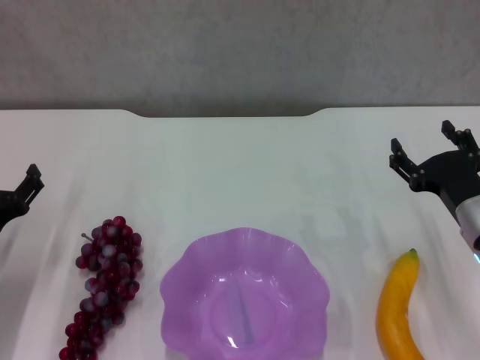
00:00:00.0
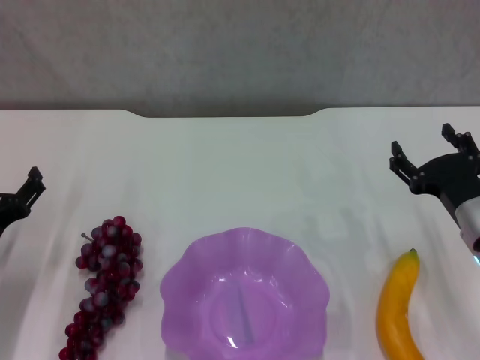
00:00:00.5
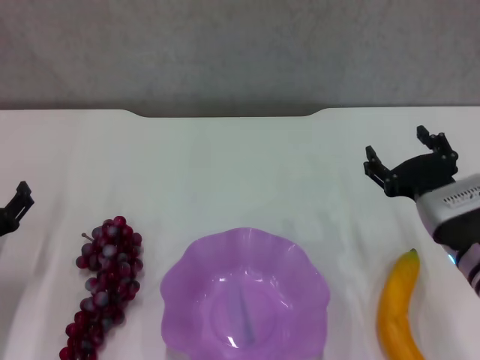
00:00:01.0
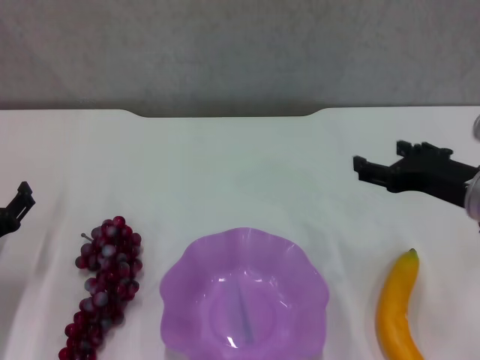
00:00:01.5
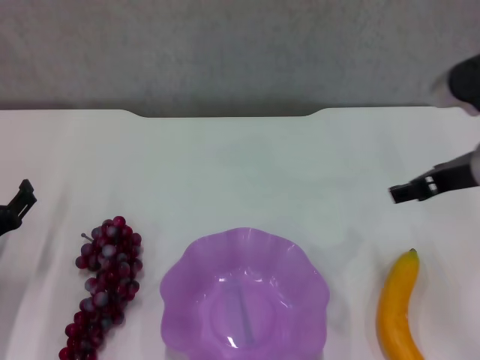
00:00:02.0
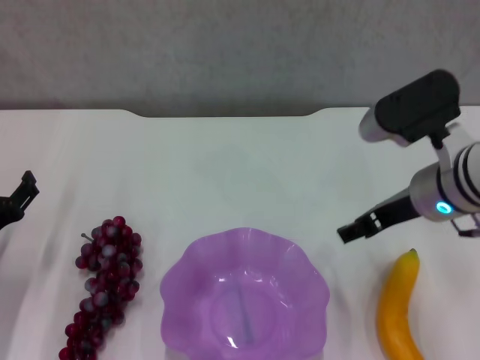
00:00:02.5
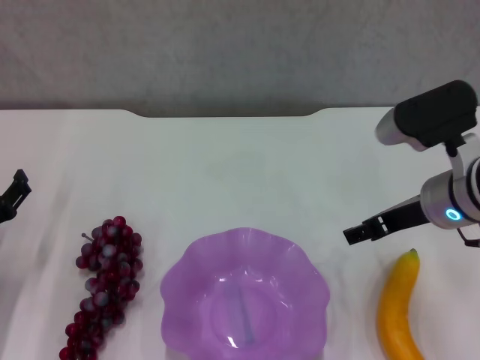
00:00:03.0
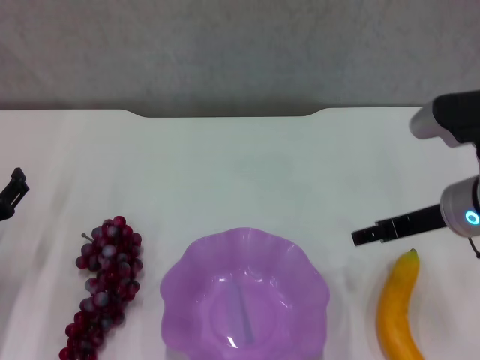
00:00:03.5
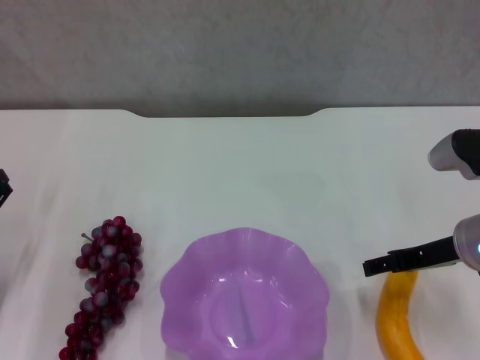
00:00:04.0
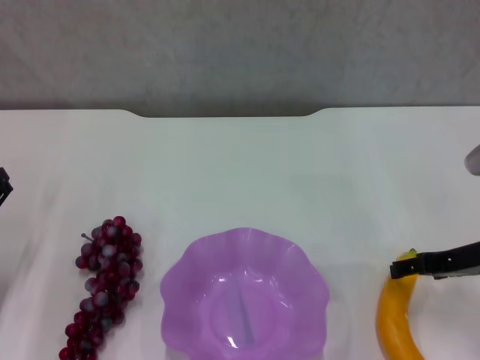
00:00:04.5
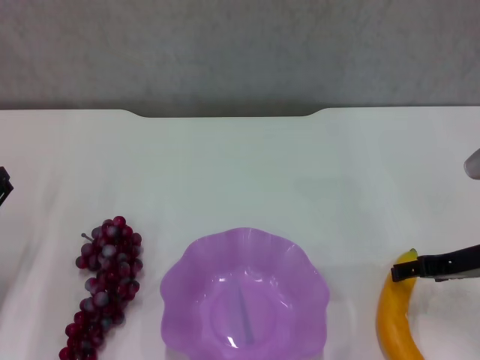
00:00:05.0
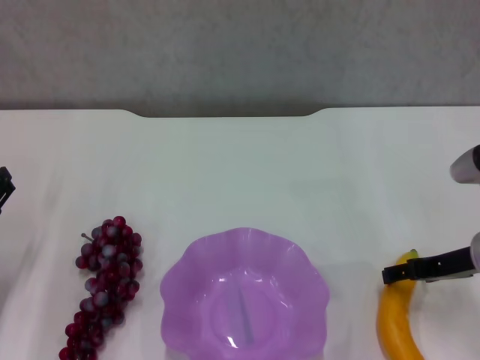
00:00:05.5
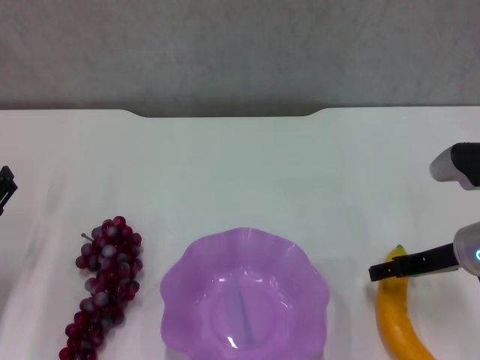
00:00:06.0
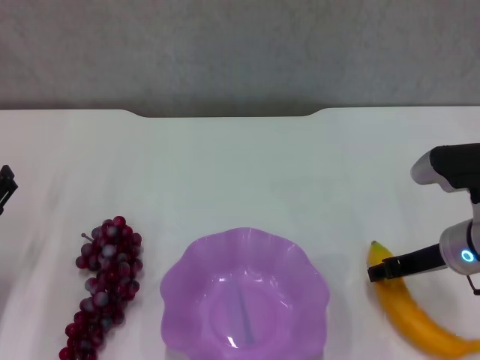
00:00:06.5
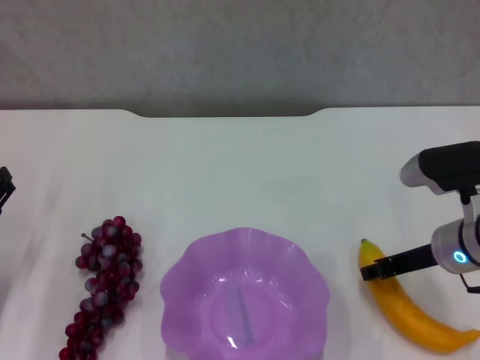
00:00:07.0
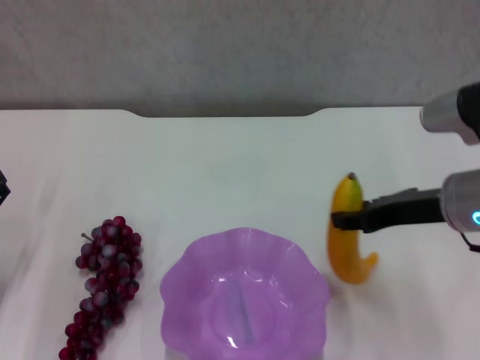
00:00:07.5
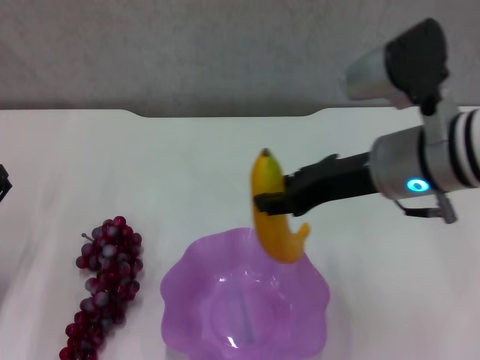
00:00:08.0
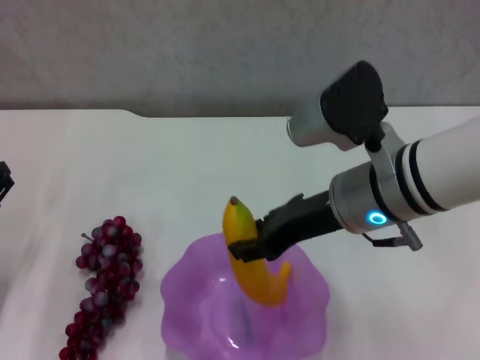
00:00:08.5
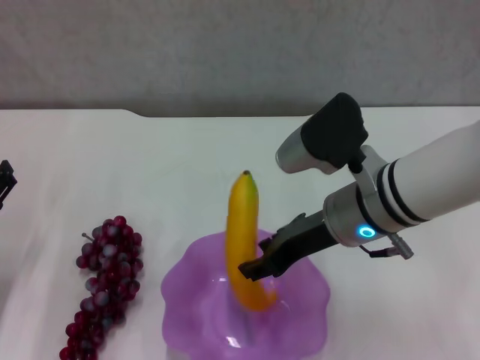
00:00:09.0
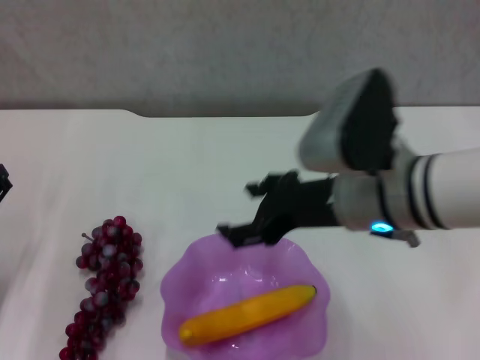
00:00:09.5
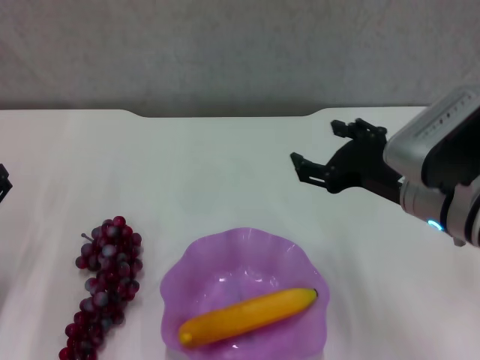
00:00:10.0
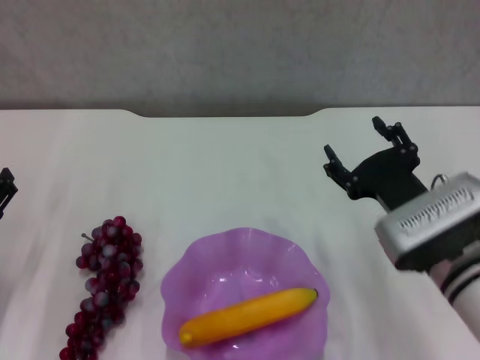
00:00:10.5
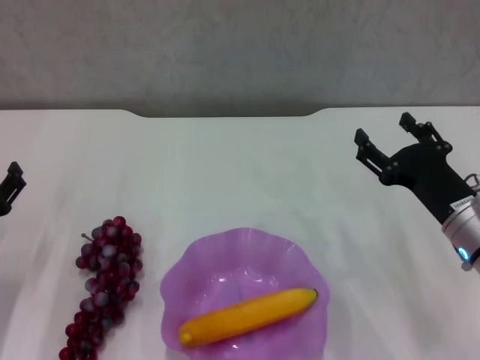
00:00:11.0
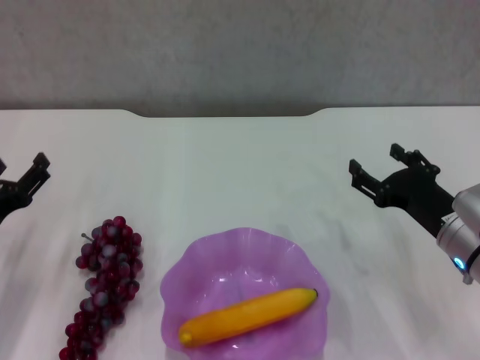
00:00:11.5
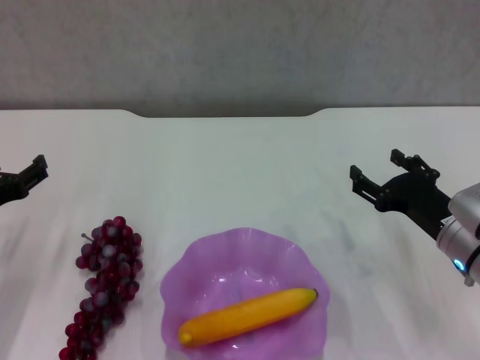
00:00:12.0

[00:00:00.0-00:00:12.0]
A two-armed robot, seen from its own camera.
Step, 00:00:00.0 to 00:00:06.5: Grasp the banana with right gripper.
Step, 00:00:07.0 to 00:00:09.5: Place the banana in the purple plate with right gripper.
00:00:00.0 to 00:00:02.0: The right gripper moves upward, about 15 cm.
00:00:02.0 to 00:00:04.0: The right gripper travels downward by about 5 cm.
00:00:04.0 to 00:00:06.0: The grippers move only a little.
00:00:06.0 to 00:00:08.0: The right gripper moves upward and to the left, approximately 15 cm, and closes its fingers.
00:00:08.0 to 00:00:10.0: The right gripper goes approximately 5 cm downward, and opens up.
00:00:10.0 to 00:00:12.0: The right gripper goes roughly 15 cm downward and to the right, while the left gripper shifts some 5 cm upward.

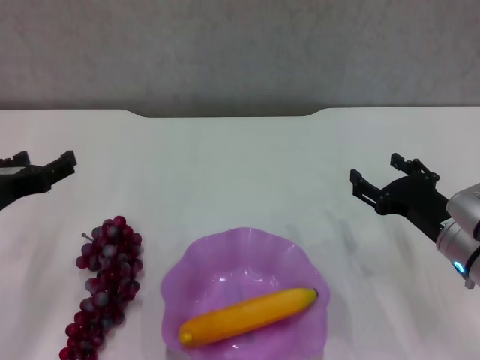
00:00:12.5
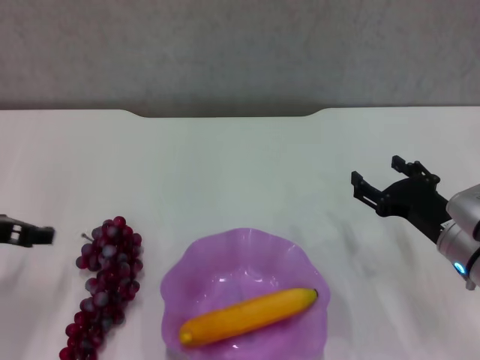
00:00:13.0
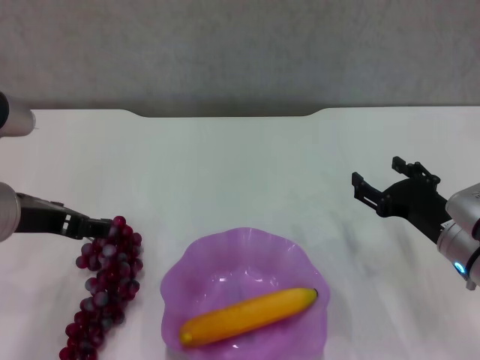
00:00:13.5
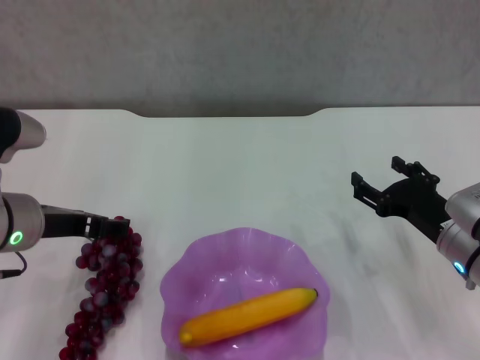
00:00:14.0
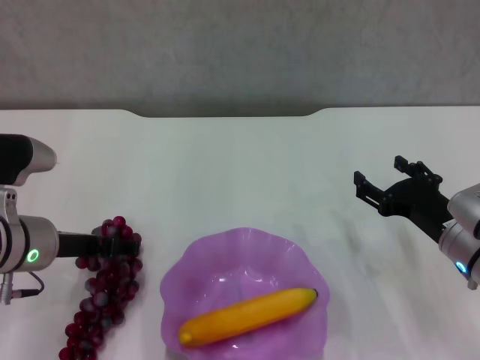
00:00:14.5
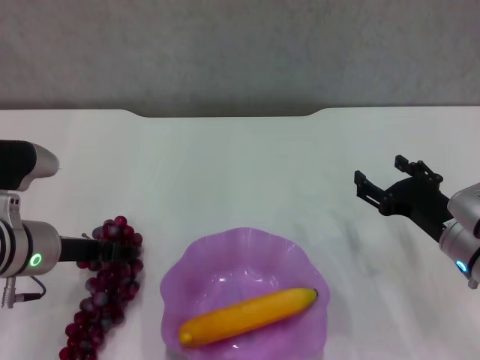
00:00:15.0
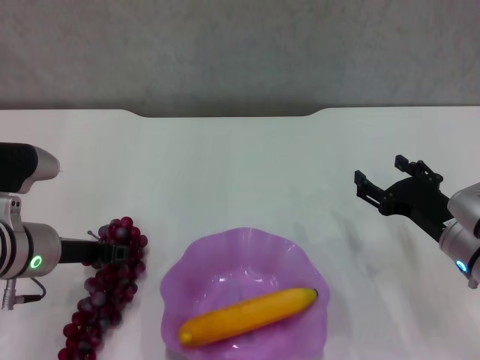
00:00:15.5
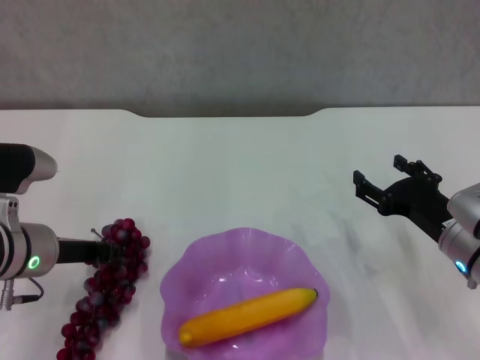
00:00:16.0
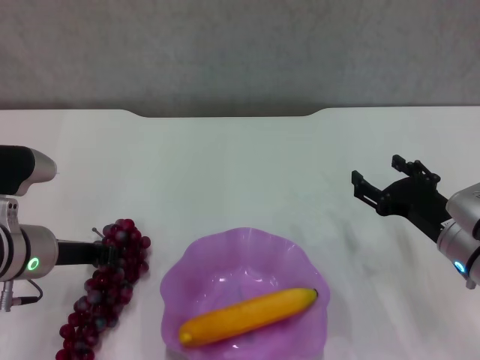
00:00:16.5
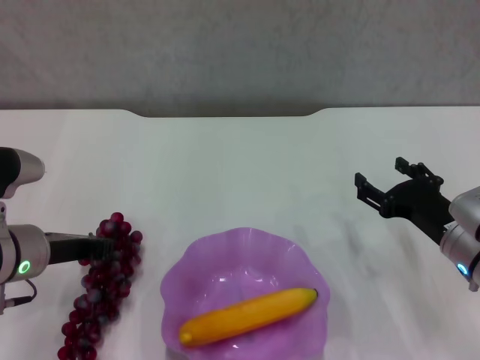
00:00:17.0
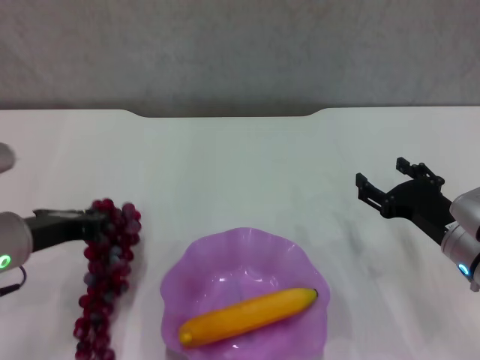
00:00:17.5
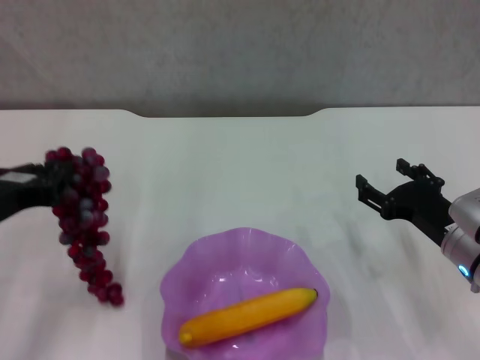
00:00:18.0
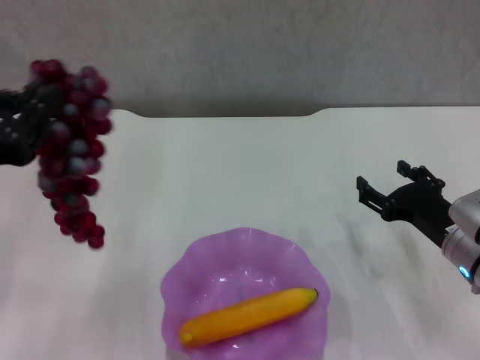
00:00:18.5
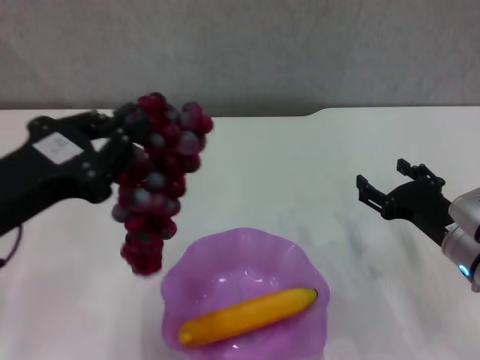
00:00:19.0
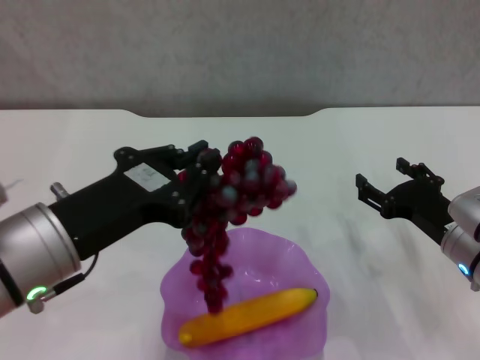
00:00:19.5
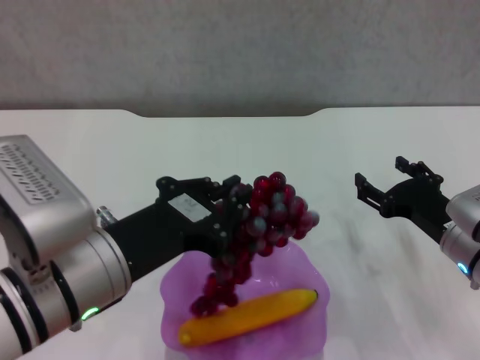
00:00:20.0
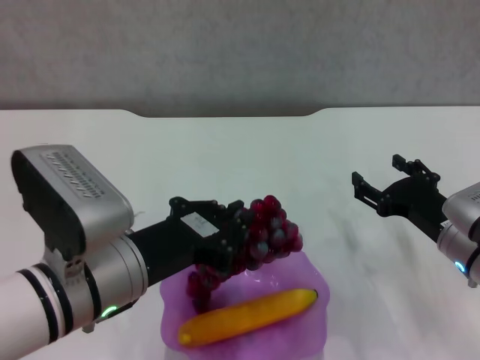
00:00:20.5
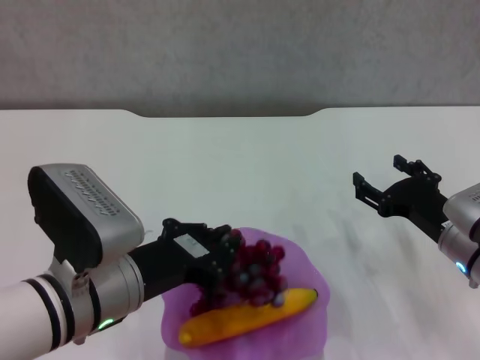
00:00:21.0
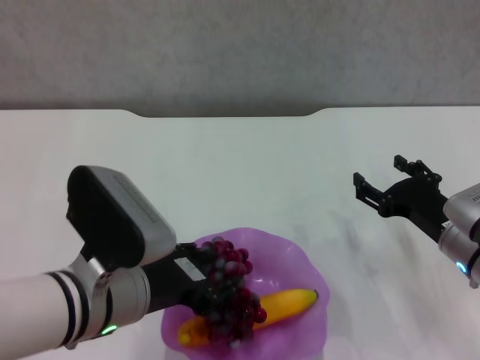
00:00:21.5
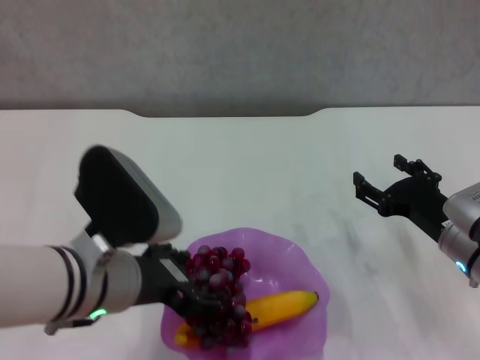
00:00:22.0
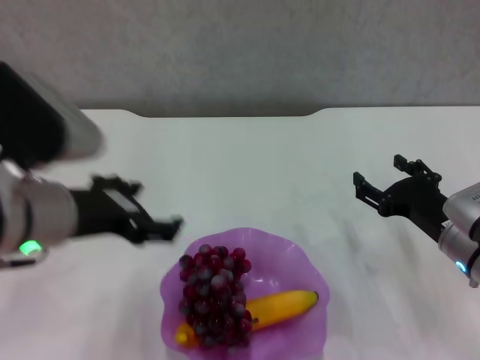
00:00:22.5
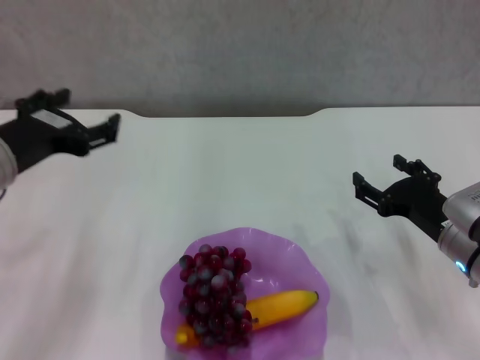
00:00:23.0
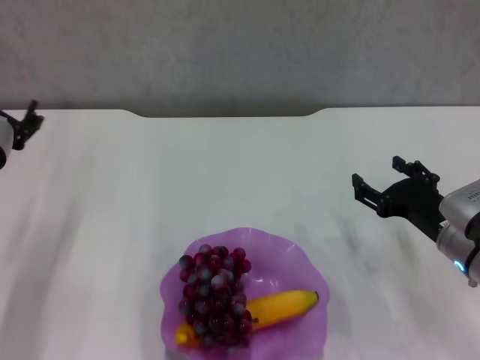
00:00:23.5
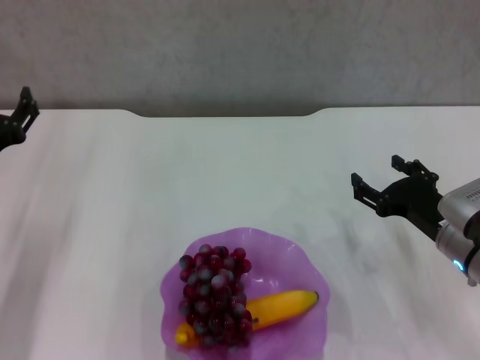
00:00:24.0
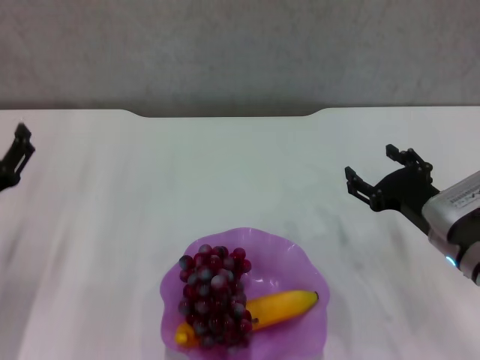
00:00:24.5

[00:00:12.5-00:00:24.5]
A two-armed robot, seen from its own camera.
Step, 00:00:12.5 to 00:00:16.0: Grasp the grape with left gripper.
Step, 00:00:16.5 to 00:00:22.0: Place the grape in the purple plate with left gripper.
00:00:12.5 to 00:00:14.5: The left gripper is displaced to the right by some 5 cm.
00:00:14.5 to 00:00:16.5: The left gripper closes up.
00:00:16.5 to 00:00:18.5: The left gripper moves upward and backward, approximately 15 cm.
00:00:18.5 to 00:00:20.5: The left gripper heads to the right and downward, covering about 15 cm.
00:00:20.5 to 00:00:22.5: The left gripper heads upward, covering approximately 5 cm, and opens.
00:00:22.5 to 00:00:24.5: The left gripper is displaced downward and to the left by about 20 cm.

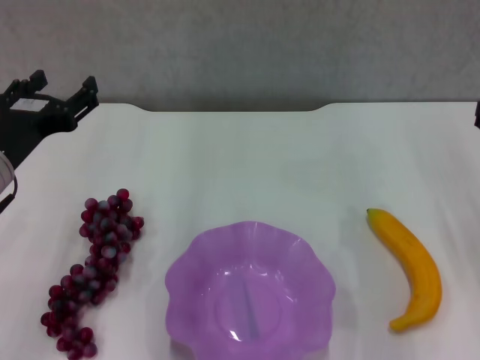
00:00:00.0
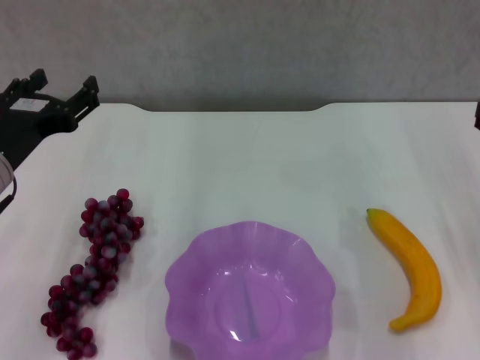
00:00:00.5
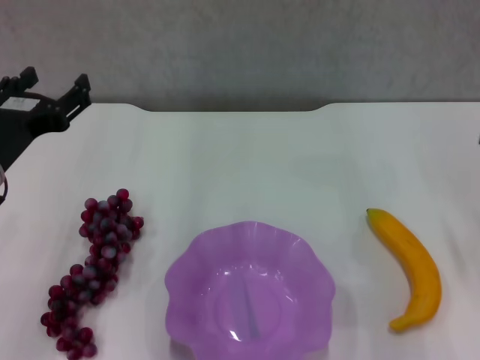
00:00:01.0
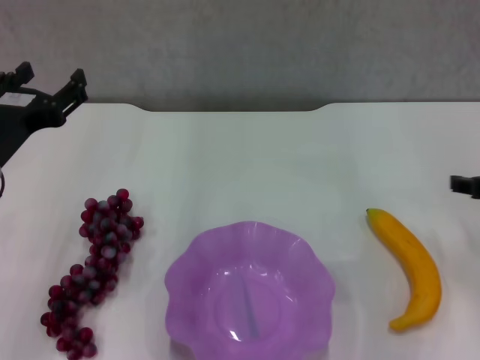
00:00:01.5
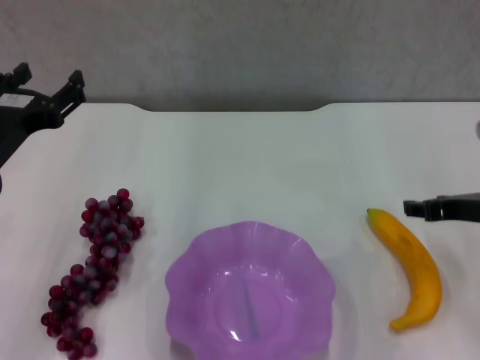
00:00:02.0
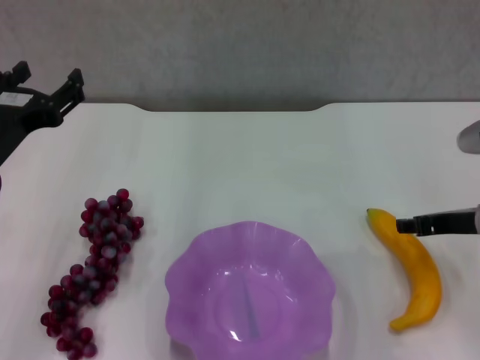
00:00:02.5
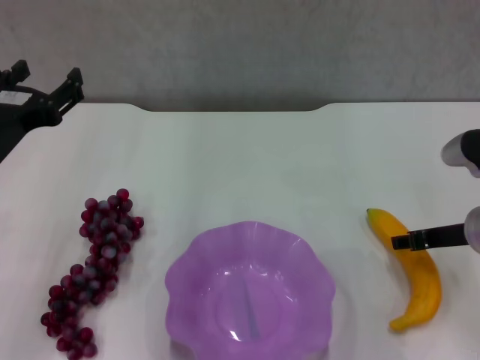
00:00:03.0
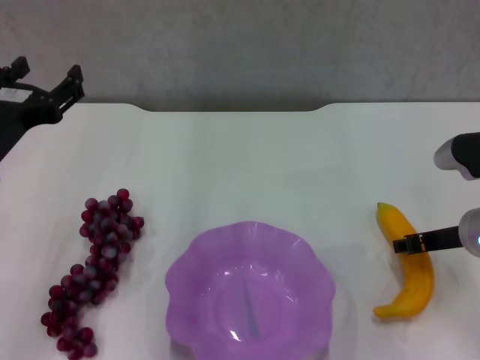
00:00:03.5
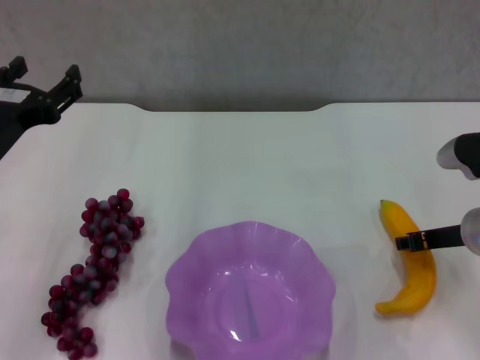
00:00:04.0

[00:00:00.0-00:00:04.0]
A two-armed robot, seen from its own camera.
Step, 00:00:01.0 to 00:00:03.0: Grasp the banana with right gripper.
00:00:02.0 to 00:00:04.0: The right gripper closes its fingers.
